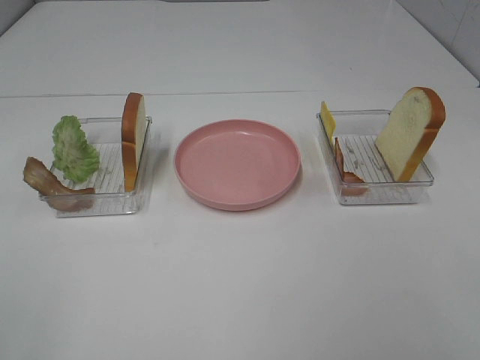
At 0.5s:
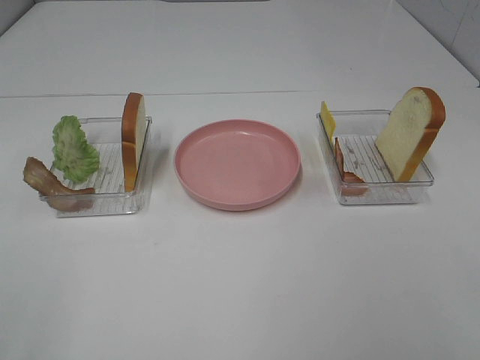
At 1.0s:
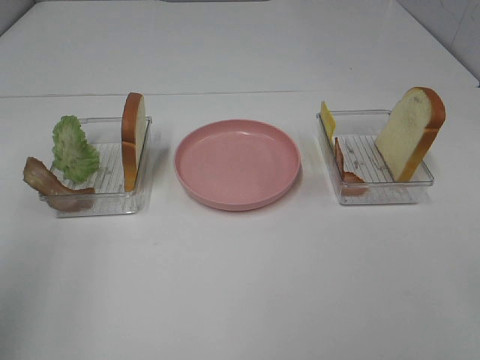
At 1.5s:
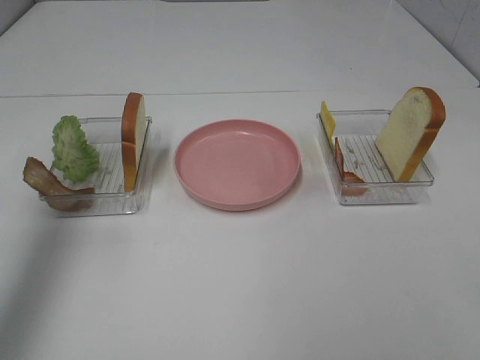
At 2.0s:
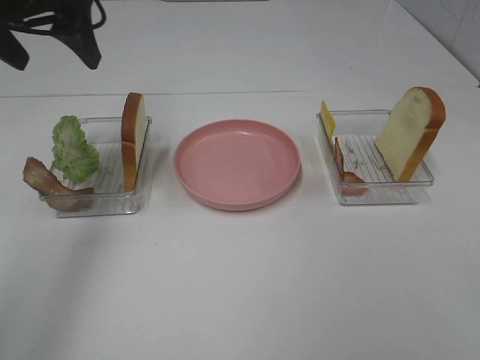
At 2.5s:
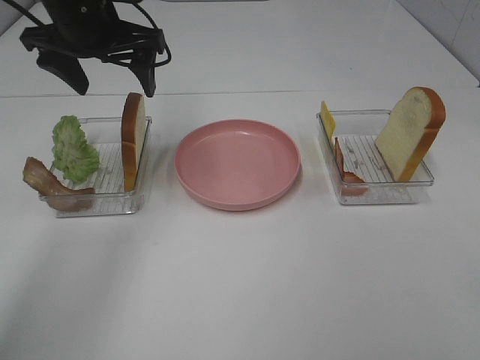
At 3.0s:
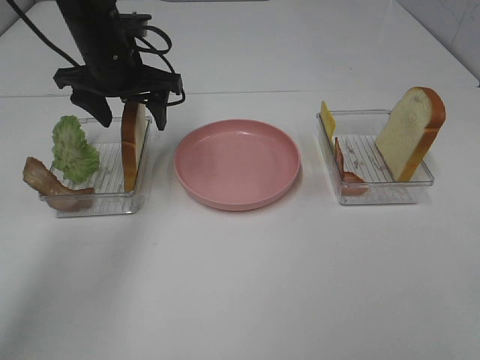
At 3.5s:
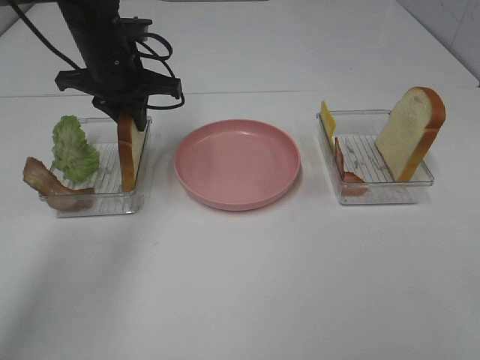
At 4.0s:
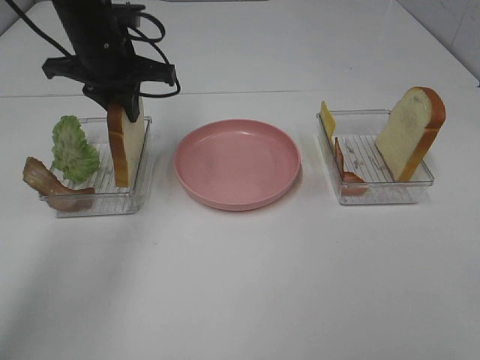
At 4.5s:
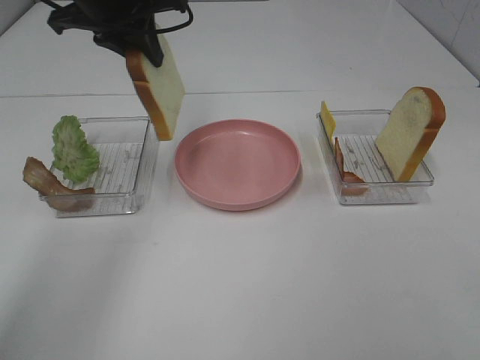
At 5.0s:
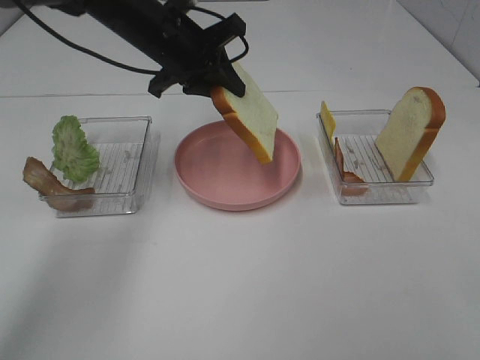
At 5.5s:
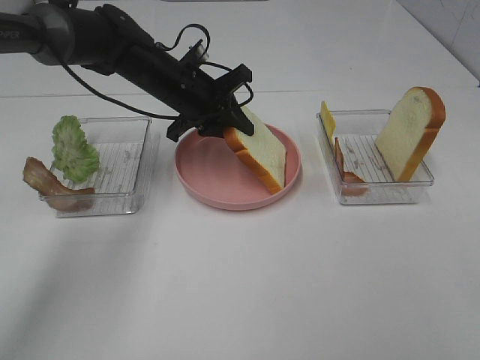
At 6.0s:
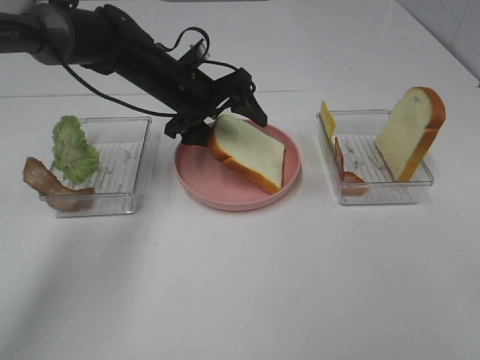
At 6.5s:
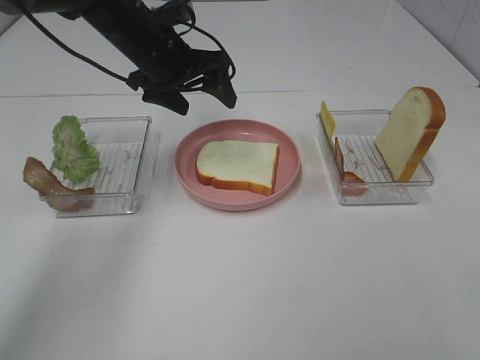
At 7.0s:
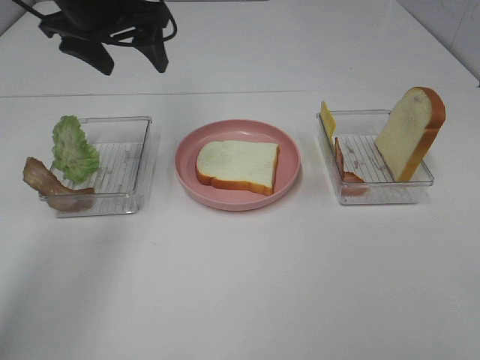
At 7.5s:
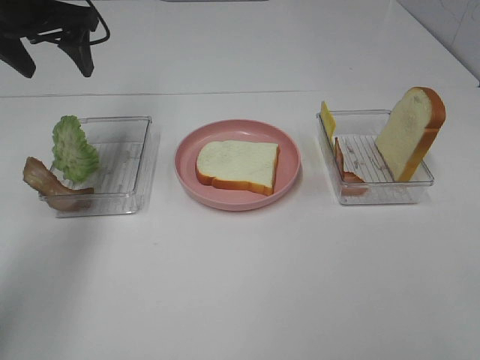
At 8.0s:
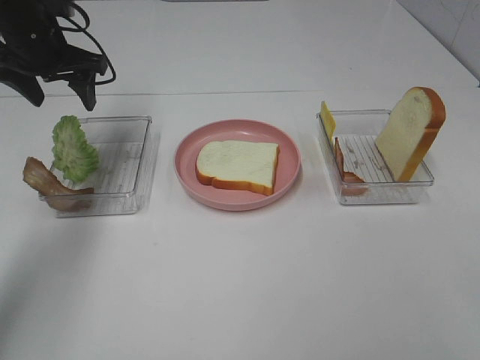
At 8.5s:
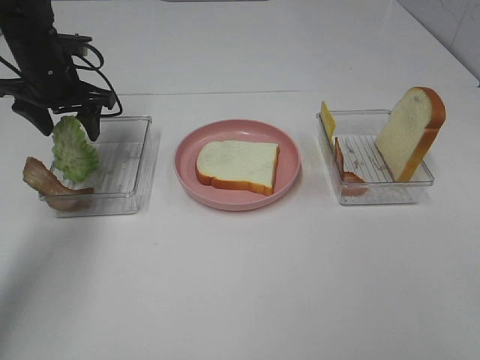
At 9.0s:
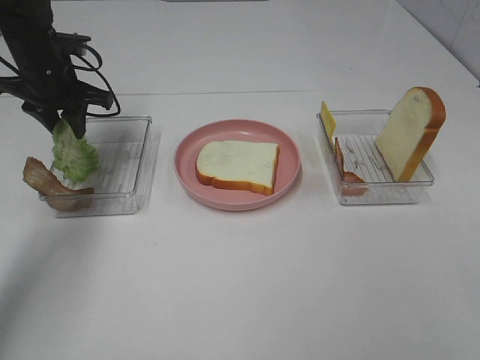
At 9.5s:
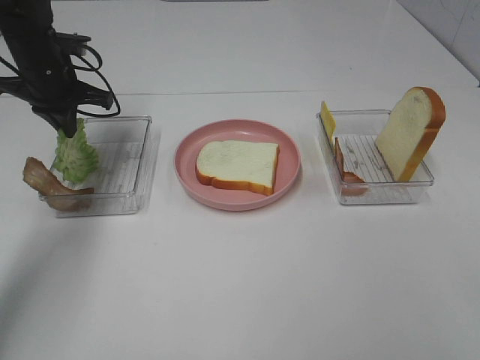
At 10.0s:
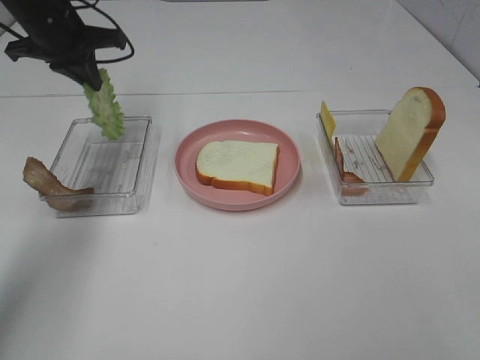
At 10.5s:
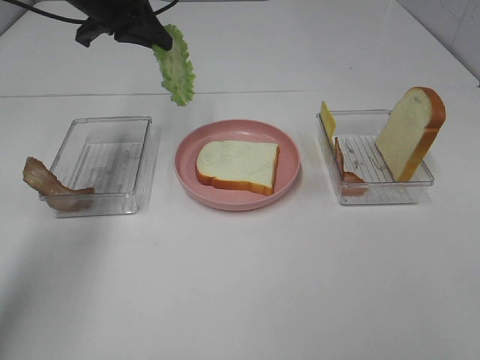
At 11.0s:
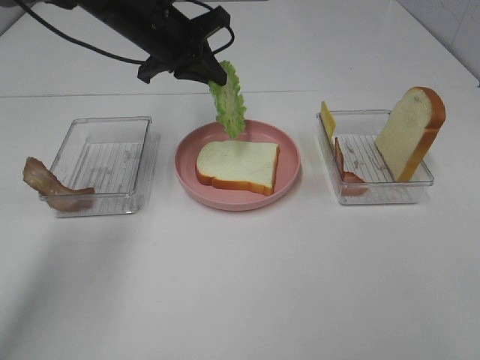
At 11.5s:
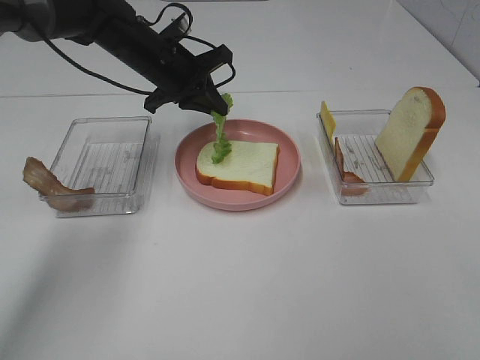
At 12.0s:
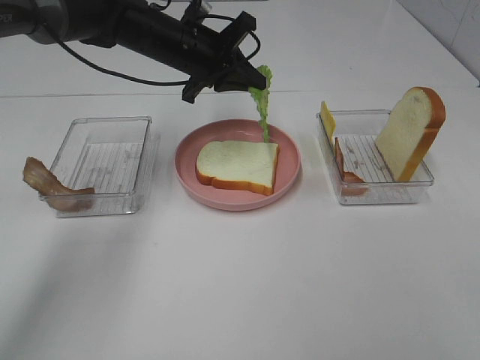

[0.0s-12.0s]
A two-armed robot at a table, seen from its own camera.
Task of the whole recording: Make sandwiches.
Step, 0.0s to 3.5s: Left hand:grab the bread slice.
Step, 4.0s to 6.0s: Left hand:place the bread slice on the plate.
Step, 6.5s to 9.5s: Left hand:grab the lettuce slice.
0.0s to 2.0s: The left gripper heads forward, covering some 40 cm.
2.0s to 4.0s: The left gripper goes approximately 10 cm downward, to the right and forward, and closes up.
4.0s to 6.0s: The left gripper is displaced downward and to the right by roughly 10 cm, and opens up.
6.0s to 8.0s: The left gripper heads to the left and upward, covering roughly 20 cm.
8.0s to 10.0s: The left gripper closes up.
10.0s to 12.0s: The left gripper shifts some 15 cm to the right.

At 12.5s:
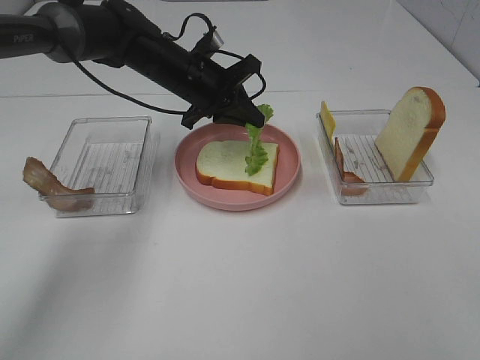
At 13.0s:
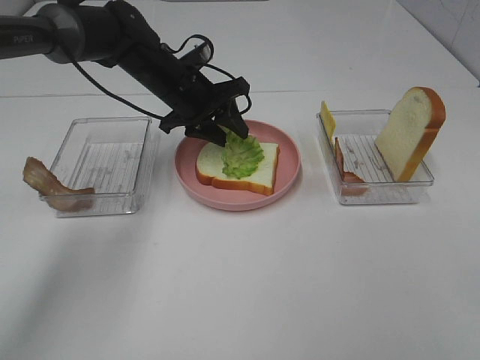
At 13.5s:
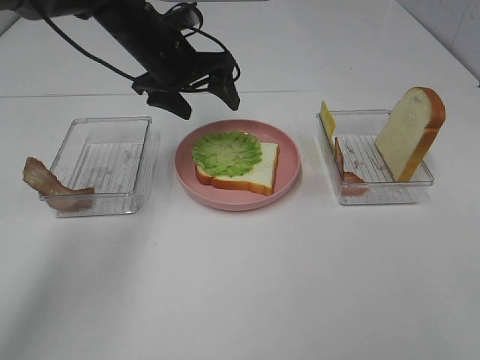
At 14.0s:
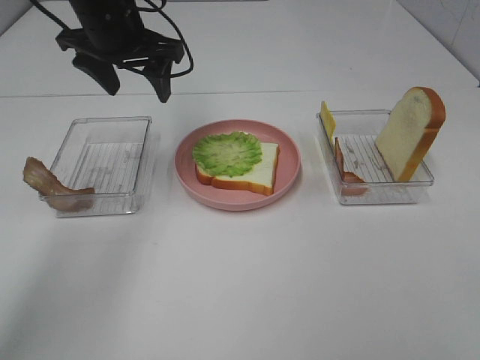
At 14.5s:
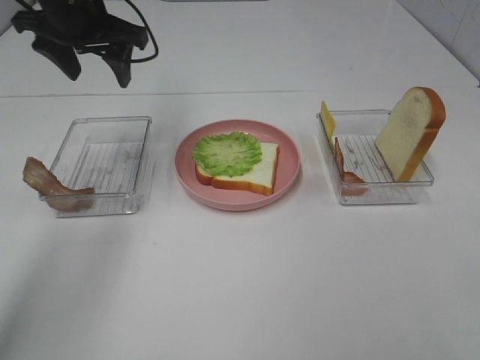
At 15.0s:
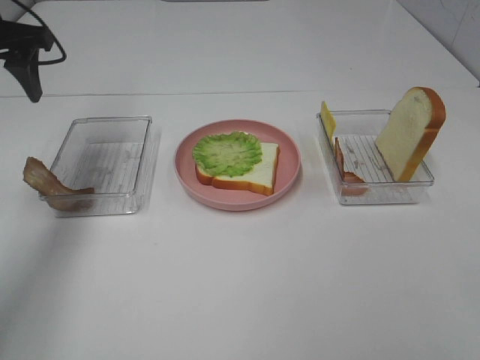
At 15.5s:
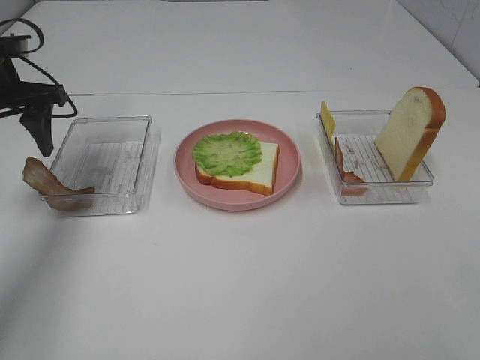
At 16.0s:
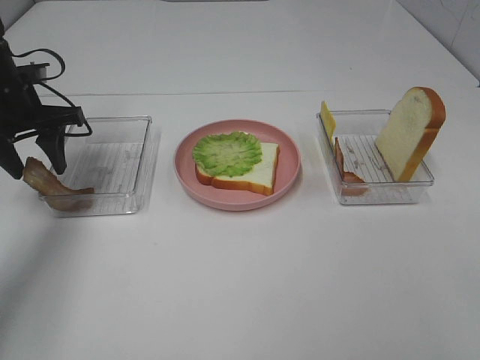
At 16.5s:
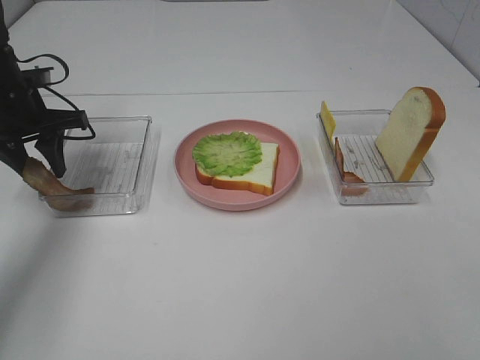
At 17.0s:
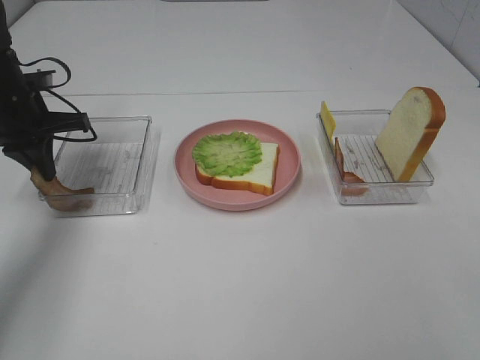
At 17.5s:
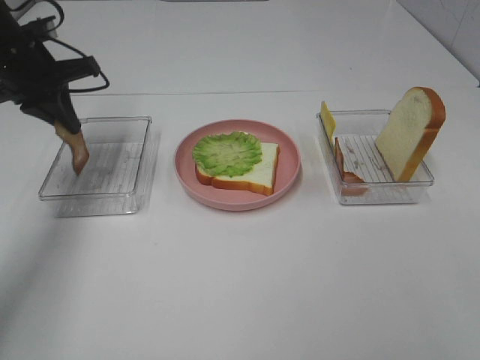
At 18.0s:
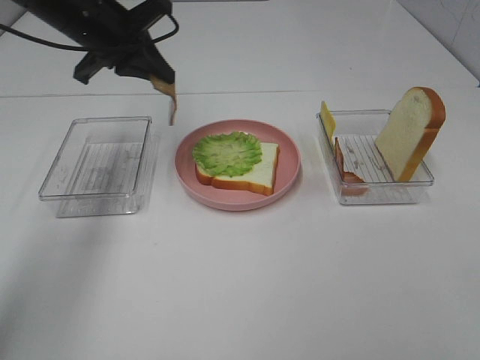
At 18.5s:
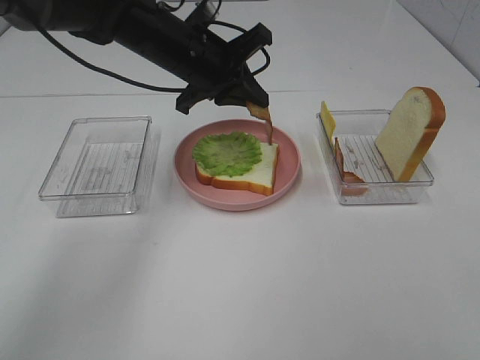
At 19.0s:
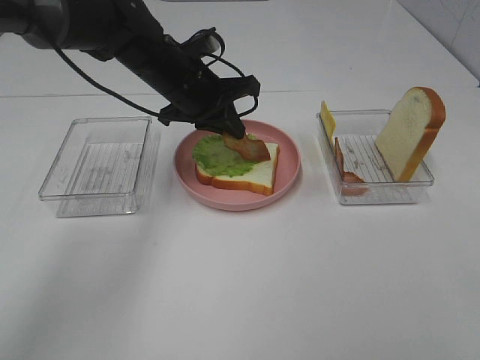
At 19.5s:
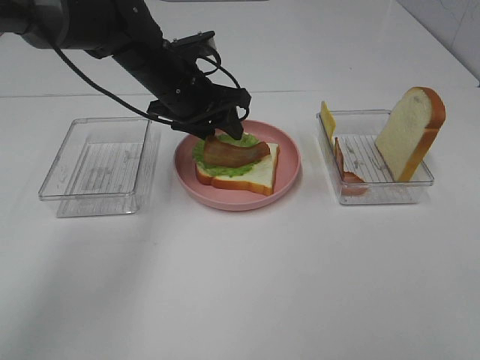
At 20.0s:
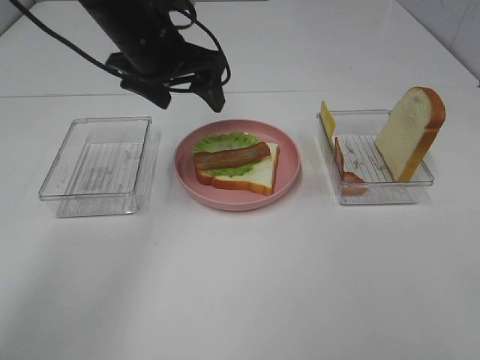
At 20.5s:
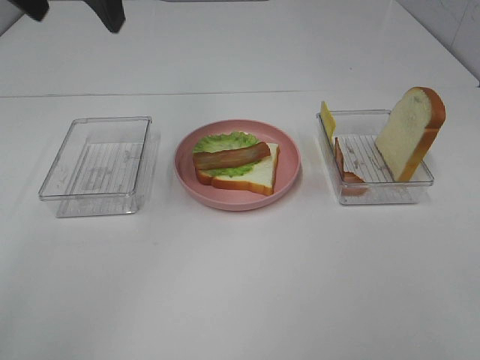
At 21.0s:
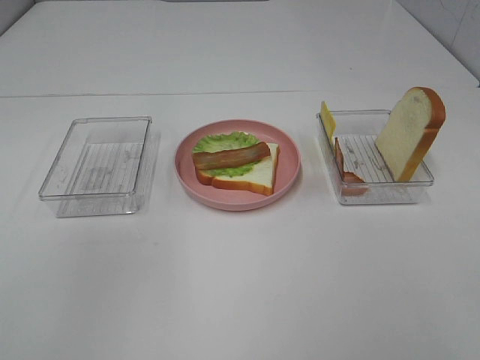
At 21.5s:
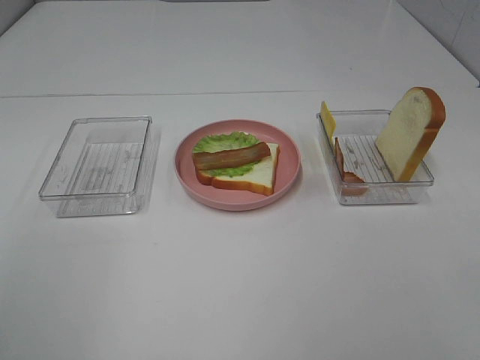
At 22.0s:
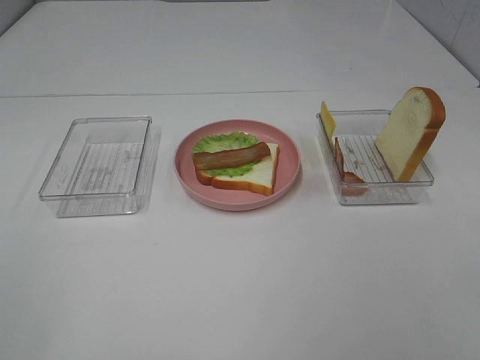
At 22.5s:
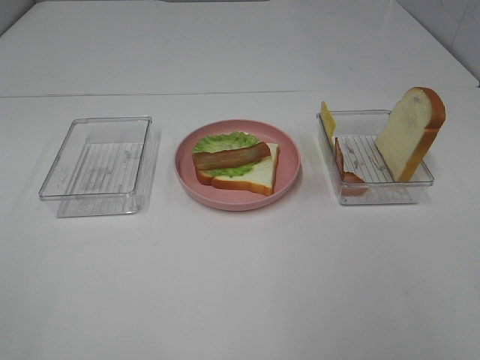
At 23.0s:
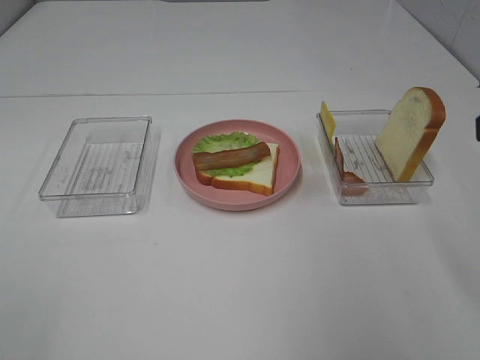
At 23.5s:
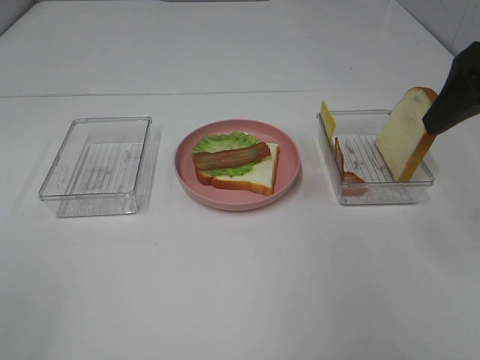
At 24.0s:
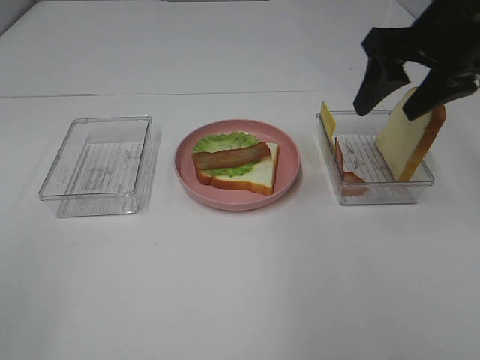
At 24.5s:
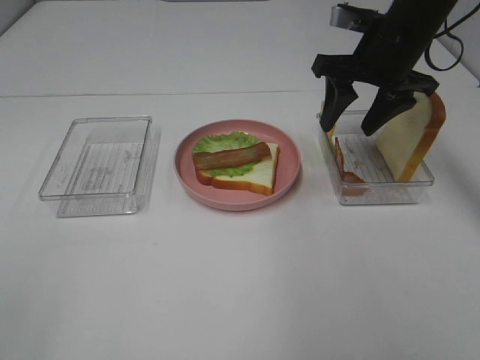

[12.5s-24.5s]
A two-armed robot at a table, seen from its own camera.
Task of the whole recording: Make sandwiches.
Step, 14.0s to 17.0s: Left hand:grab the bacon.
Step, 17.5s to 19.5s: Left hand:place bacon on lettuce slice.
12.5s to 14.5s: The left gripper moves upward and to the left, approximately 15 cm, and opens up.
14.5s to 16.5s: The left gripper goes roughly 15 cm downward and to the left.
16.5s to 18.5s: The left gripper heads to the right, covering about 20 cm, and closes up.
18.5s to 20.5s: The left gripper travels upward, to the left and backward by approximately 25 cm, and opens up.
20.5s to 22.5s: The left gripper heads backward and to the left, covering roughly 40 cm.
22.5s to 24.5s: The right gripper shifts approximately 35 cm forward.

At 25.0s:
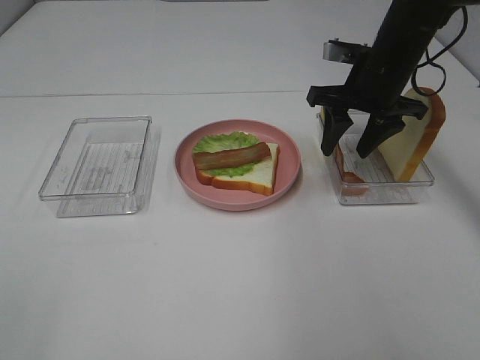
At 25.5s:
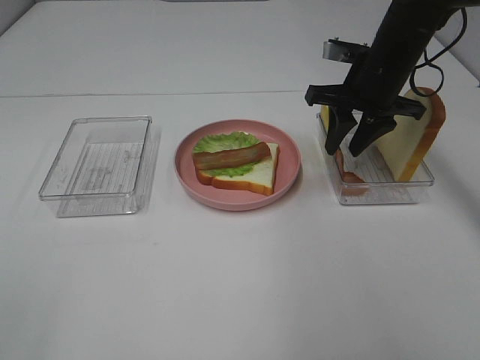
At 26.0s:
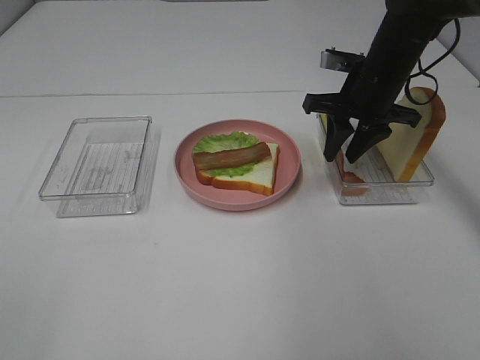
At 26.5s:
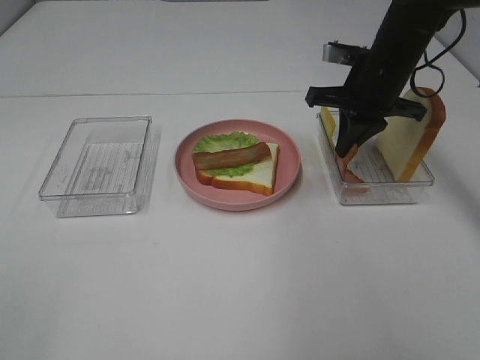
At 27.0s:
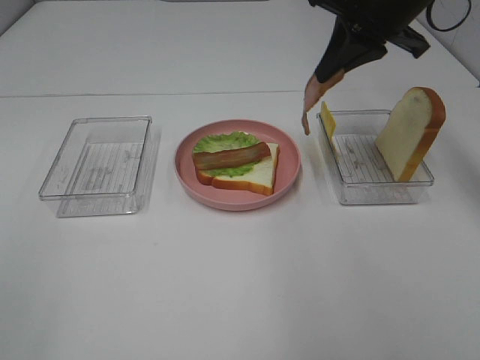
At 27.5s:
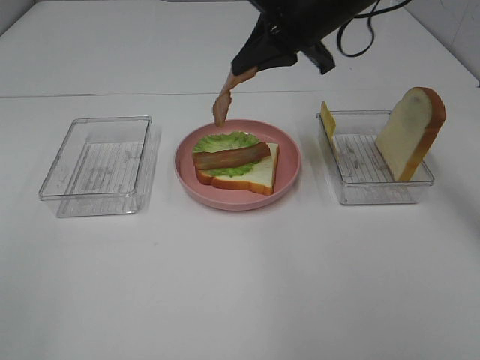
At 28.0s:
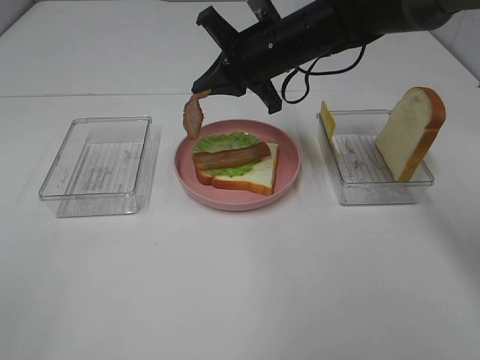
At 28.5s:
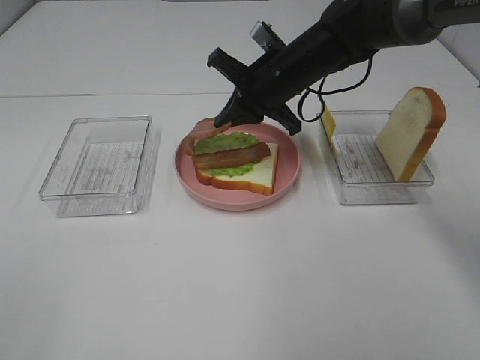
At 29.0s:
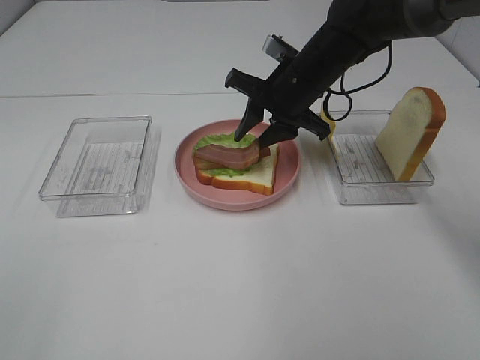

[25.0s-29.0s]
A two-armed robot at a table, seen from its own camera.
Task of the whole recording: Make sandwiches.
25.0s to 27.0s: The right gripper goes some 10 cm upward, and closes its fingers.
27.0s to 29.0s: The right gripper goes some 15 cm downward and to the left, and opens.
